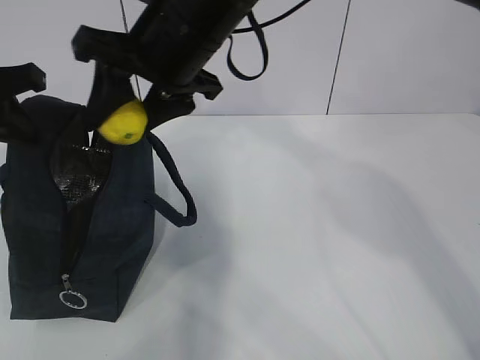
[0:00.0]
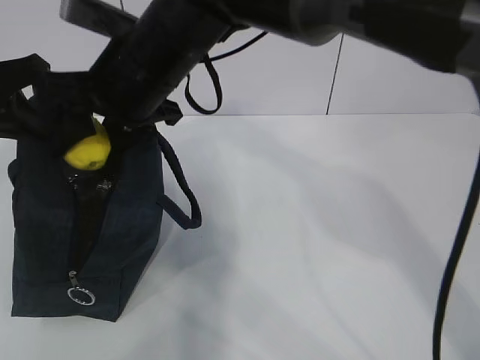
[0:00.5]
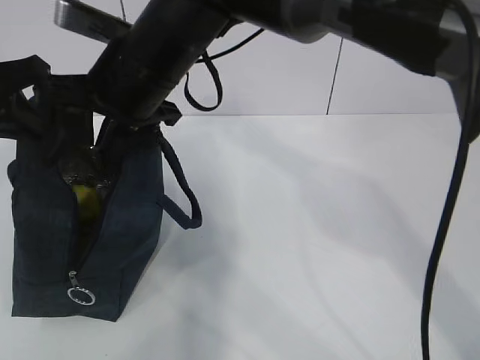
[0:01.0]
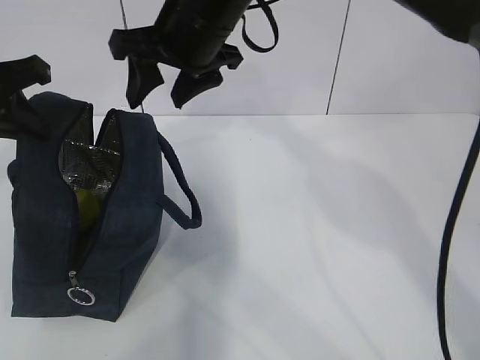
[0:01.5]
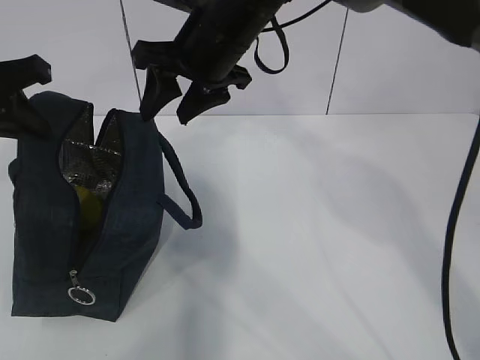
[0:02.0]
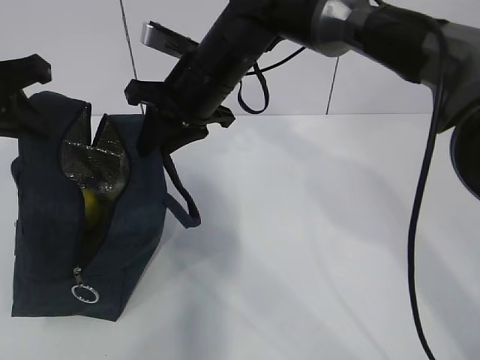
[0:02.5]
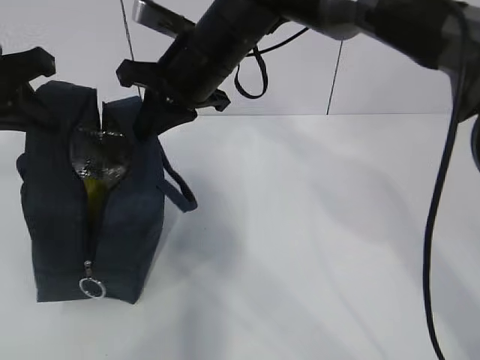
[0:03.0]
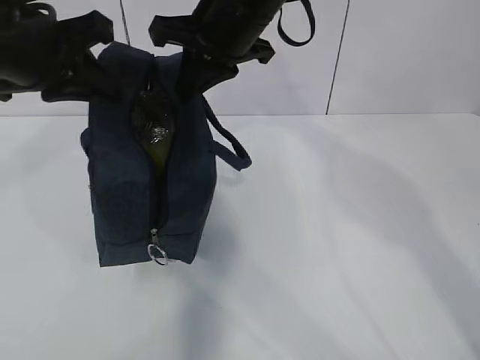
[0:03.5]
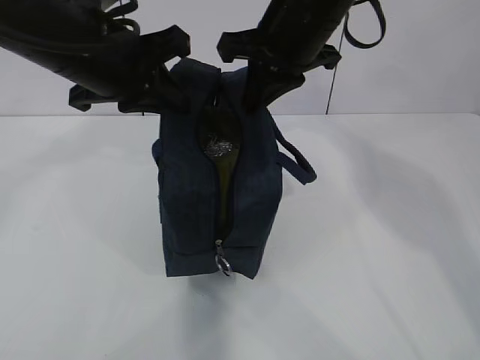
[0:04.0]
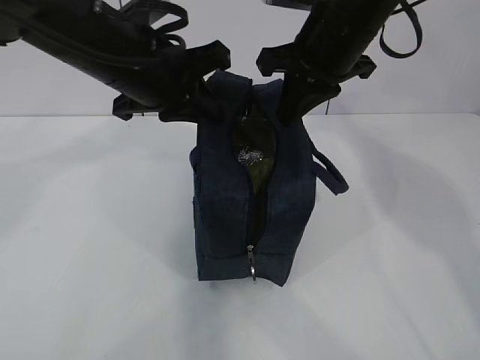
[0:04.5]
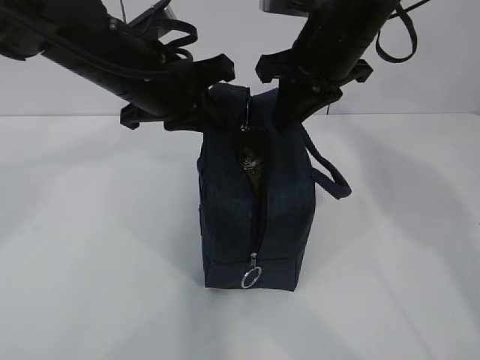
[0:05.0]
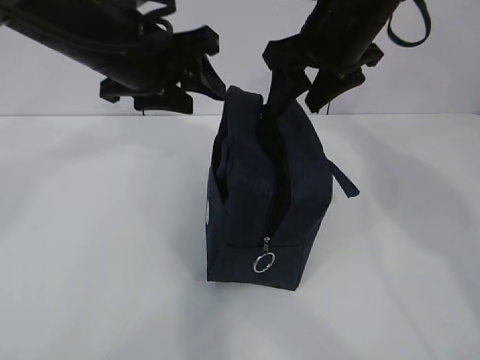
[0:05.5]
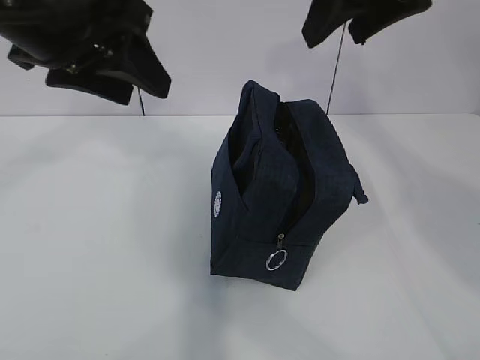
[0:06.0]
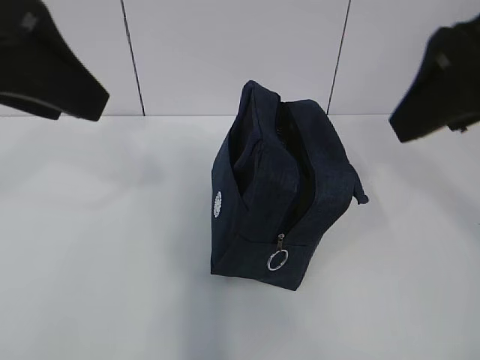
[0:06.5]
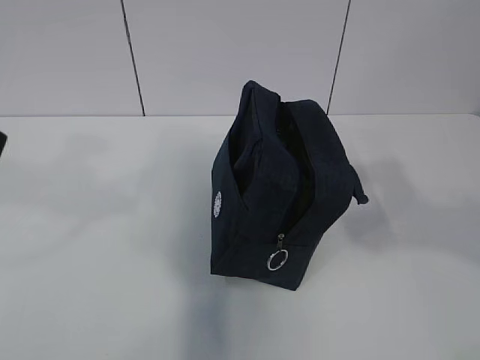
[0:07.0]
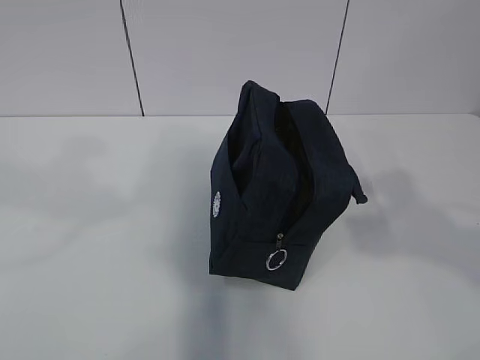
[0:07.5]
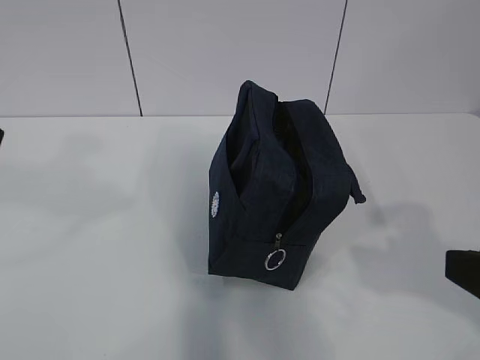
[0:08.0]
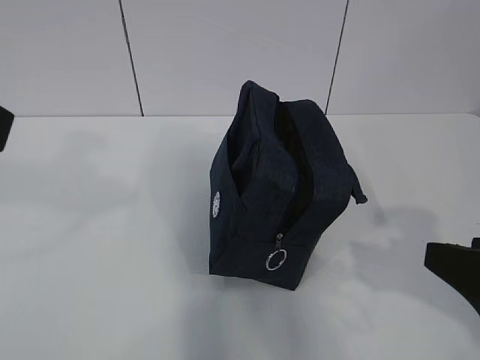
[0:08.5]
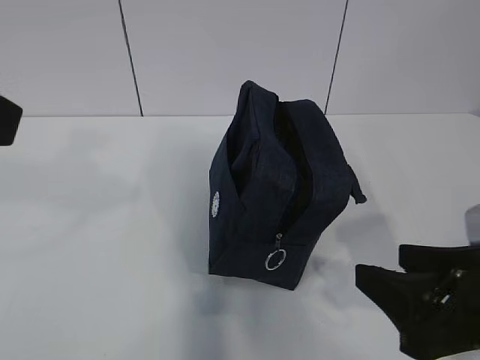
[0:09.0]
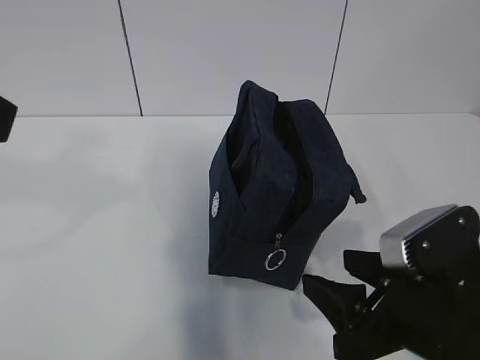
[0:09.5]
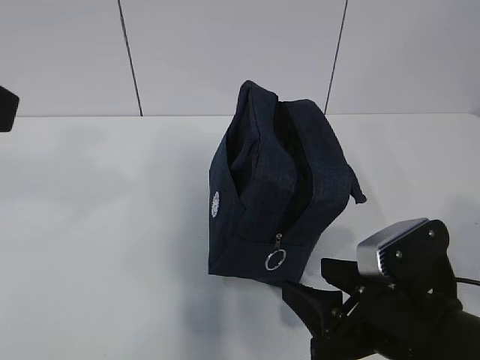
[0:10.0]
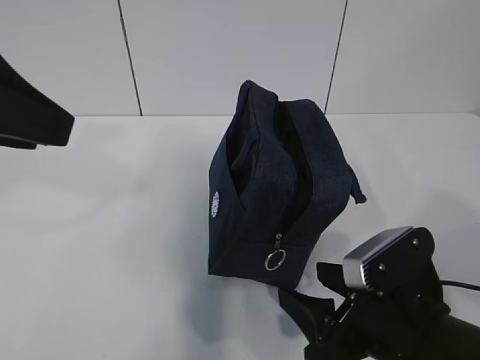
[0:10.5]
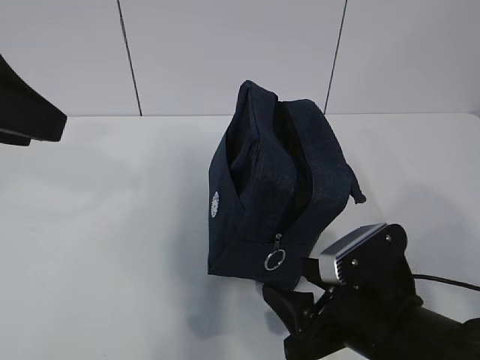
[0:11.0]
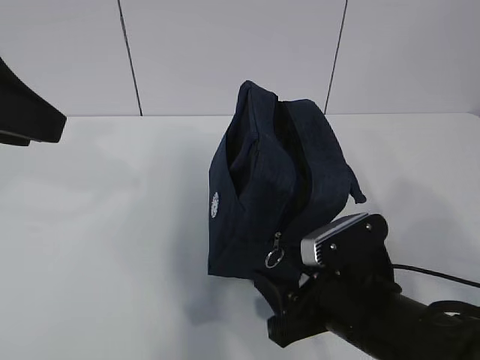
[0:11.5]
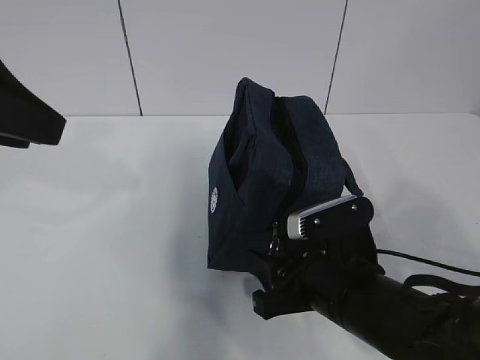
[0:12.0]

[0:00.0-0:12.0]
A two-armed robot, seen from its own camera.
0:00.0 to 0:02.0: The right gripper shifts about 5 cm forward.
0:02.0 to 0:04.0: The left gripper shifts about 10 cm to the right. Meanwhile the right gripper goes about 5 cm to the right, and closes up.
0:04.0 to 0:06.0: The right gripper shifts approximately 10 cm upward, to the right and backward, and opens up. The left gripper travels upward by roughly 5 cm, and opens up.
0:06.0 to 0:08.0: The left gripper moves backward and to the left, some 15 cm. The right gripper is displaced backward and downward by roughly 25 cm.
0:08.0 to 0:10.0: The right gripper moves downward, to the left and forward, about 15 cm.
0:10.0 to 0:12.0: The two grippers go about 5 cm forward.

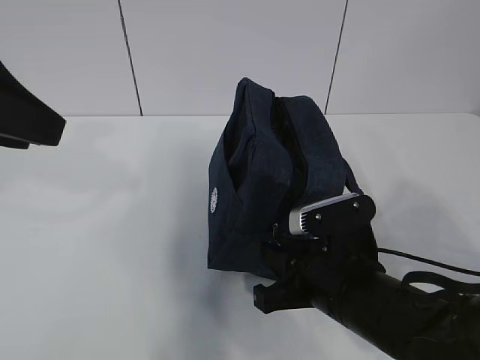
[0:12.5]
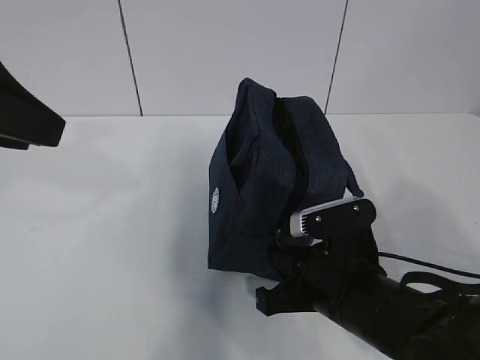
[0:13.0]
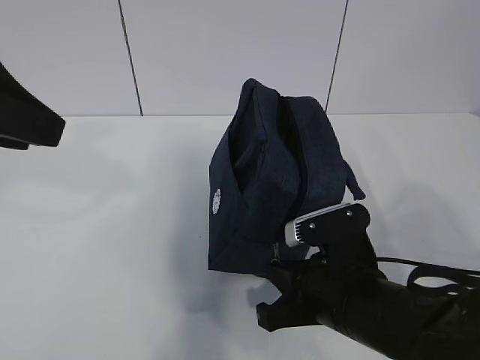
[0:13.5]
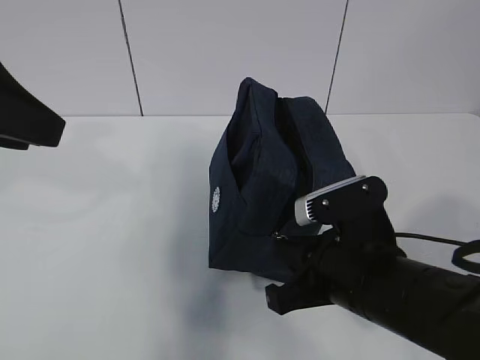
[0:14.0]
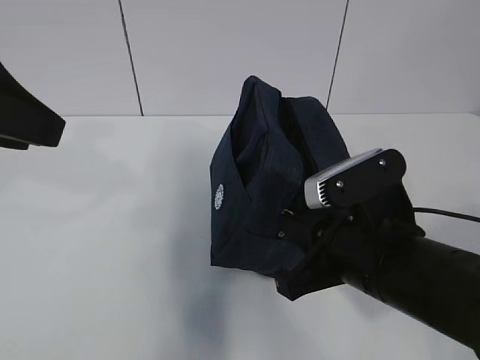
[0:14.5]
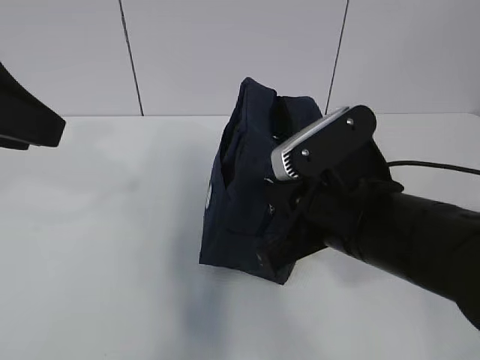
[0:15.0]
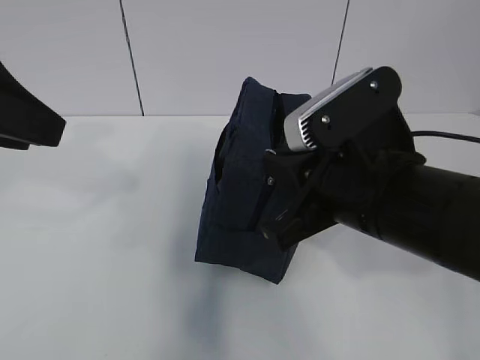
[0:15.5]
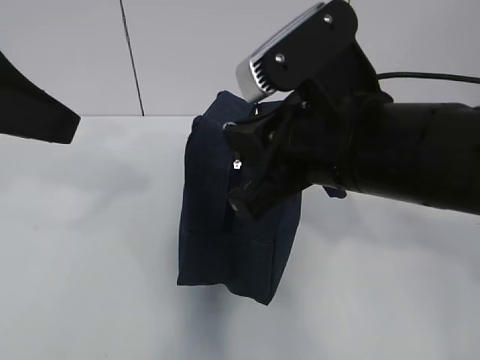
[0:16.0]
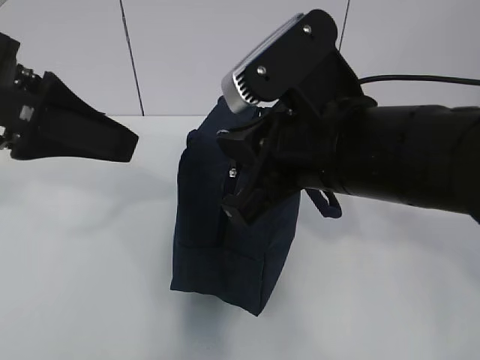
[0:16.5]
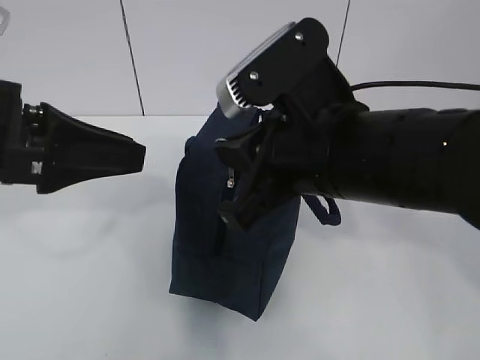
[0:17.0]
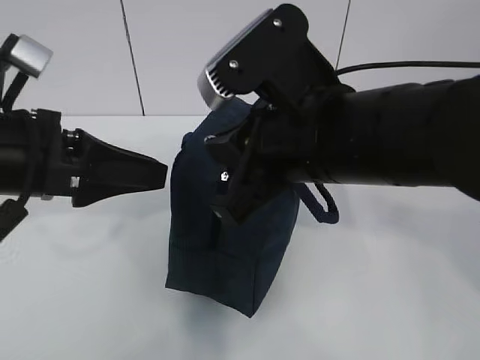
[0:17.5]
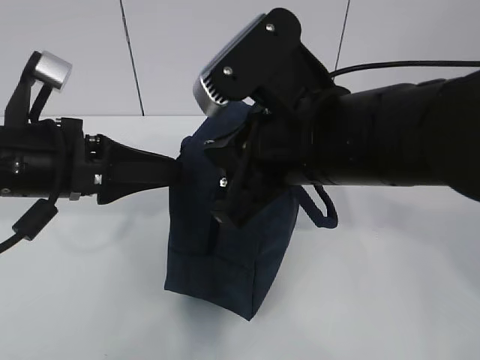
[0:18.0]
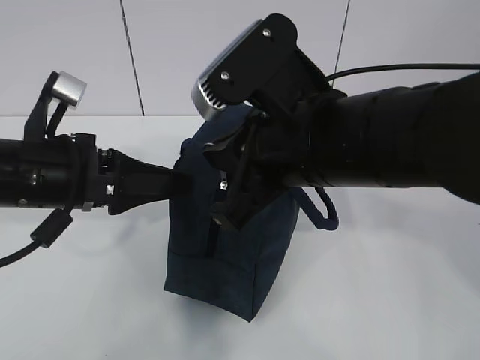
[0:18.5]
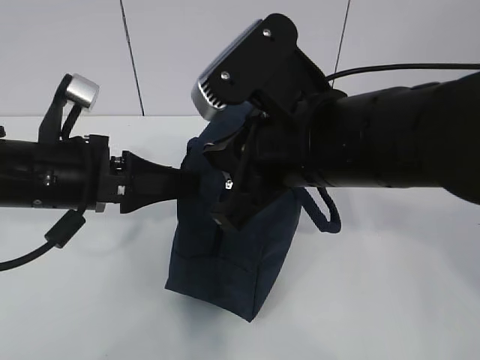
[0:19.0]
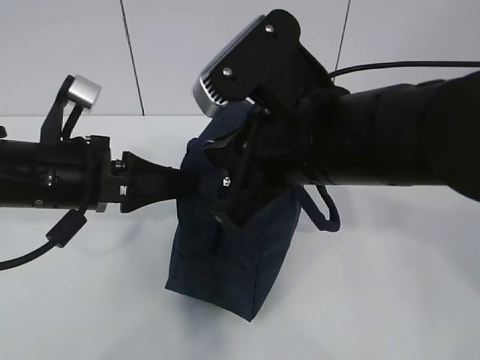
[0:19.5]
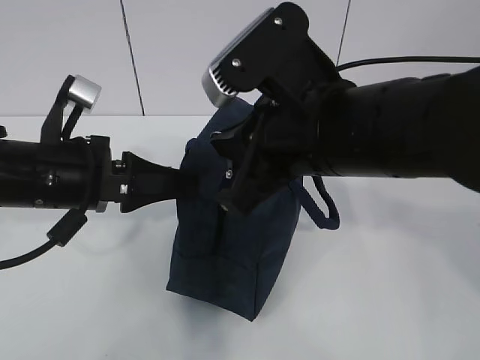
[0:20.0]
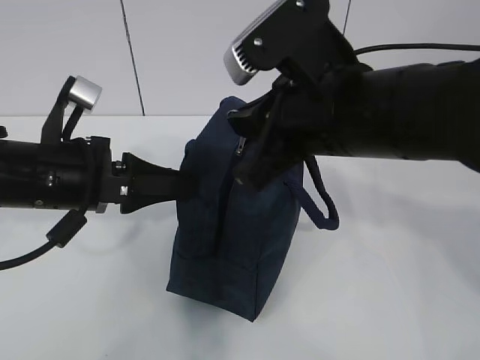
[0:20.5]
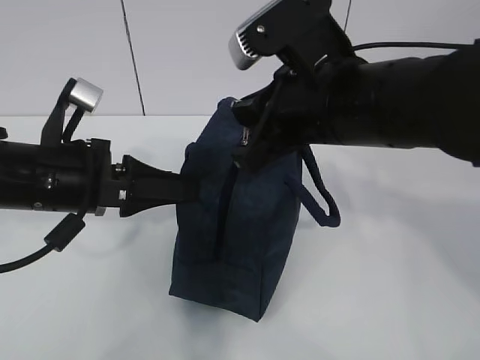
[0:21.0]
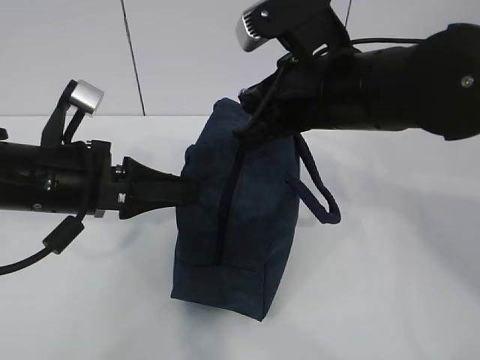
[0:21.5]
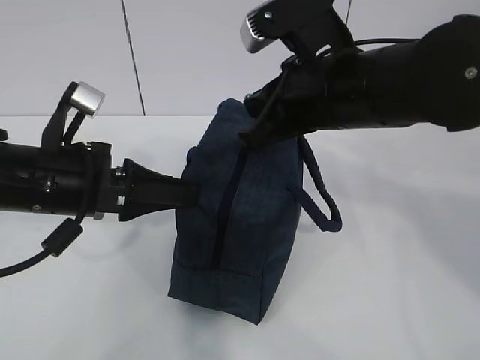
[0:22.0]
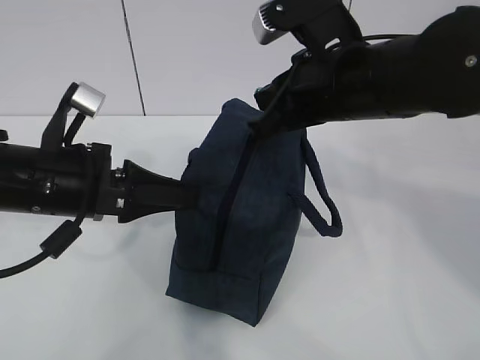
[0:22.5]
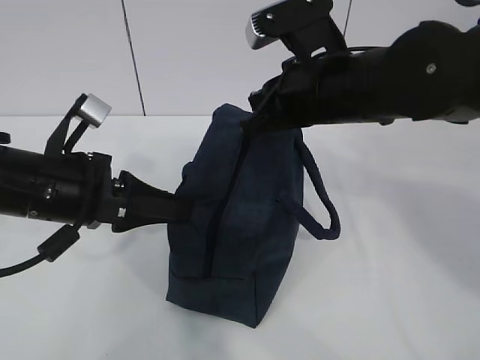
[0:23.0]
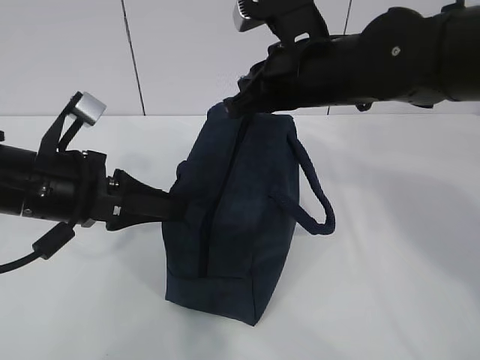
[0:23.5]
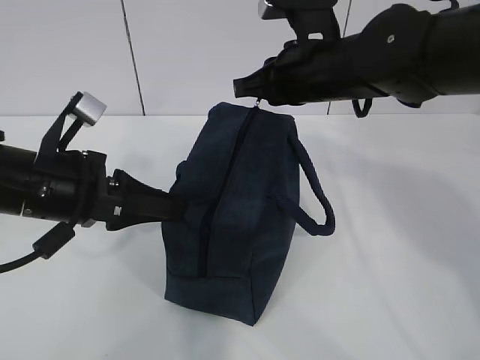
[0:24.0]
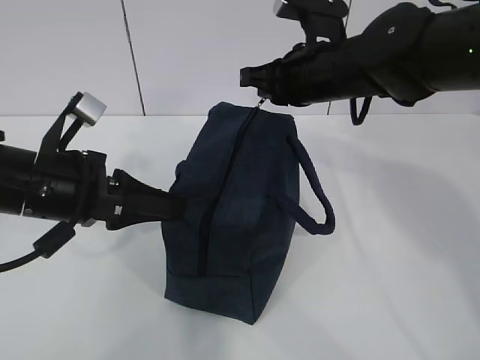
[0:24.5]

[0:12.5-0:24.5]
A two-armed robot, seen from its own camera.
Step, 0:12.5 to 0:16.5: Grab the lunch bag with your left hand.
Step, 0:17.5 to 0:21.5: Pull the zipper with your right hand.
0:12.5 to 0:14.5: The right gripper shifts about 5 cm upward.
0:14.5 to 0:16.5: The right gripper heads upward, covering roughly 10 cm.
0:16.5 to 0:18.5: The left gripper is displaced downward by some 15 cm.
0:18.5 to 0:20.5: The left gripper closes its fingers.
0:20.5 to 0:22.5: The right gripper shifts about 5 cm forward.
0:22.5 to 0:24.5: The right gripper goes roughly 10 cm forward.

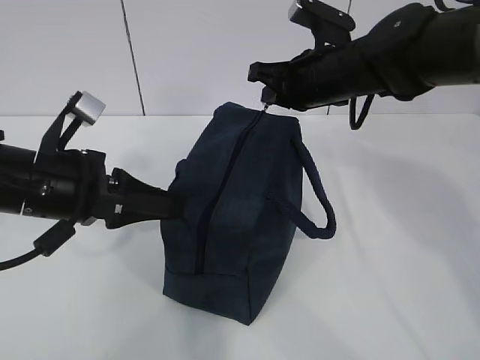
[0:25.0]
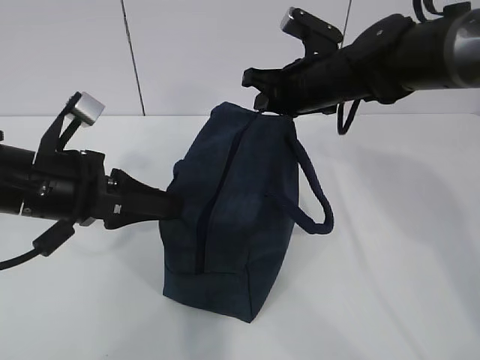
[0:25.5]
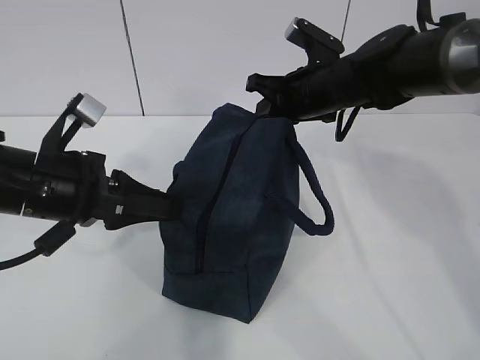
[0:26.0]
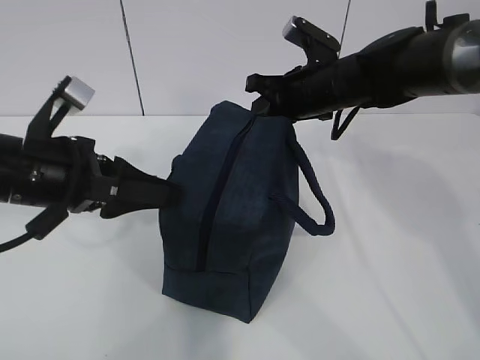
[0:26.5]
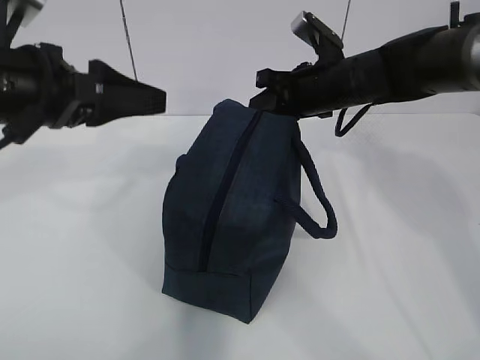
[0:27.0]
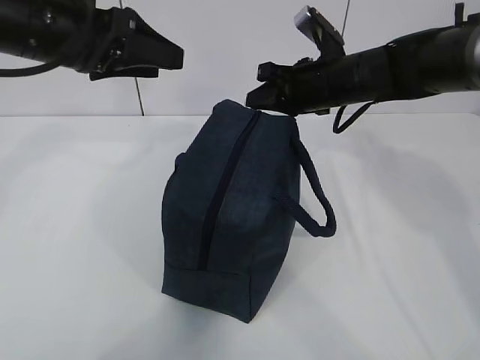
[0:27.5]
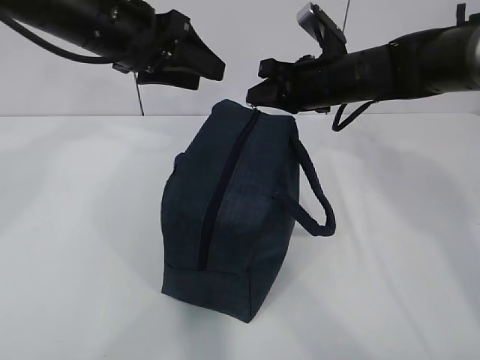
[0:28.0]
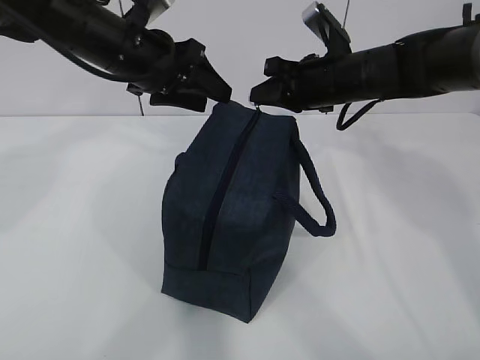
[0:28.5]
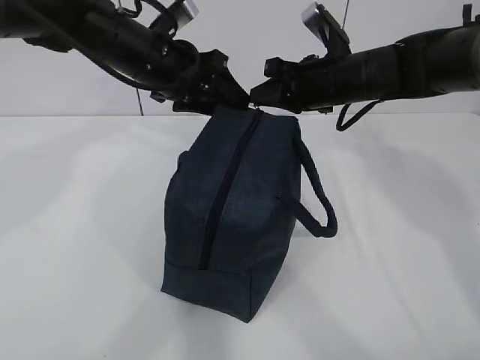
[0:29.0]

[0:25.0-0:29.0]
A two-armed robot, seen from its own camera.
0:25.0 to 0:27.0: The left gripper heads upward, covering roughly 10 cm, and opens.
0:27.0 to 0:29.0: The left gripper heads forward and to the right, covering roughly 15 cm.
